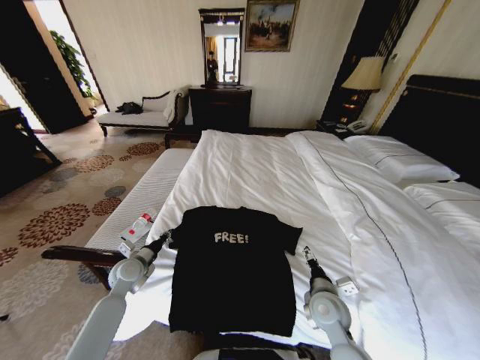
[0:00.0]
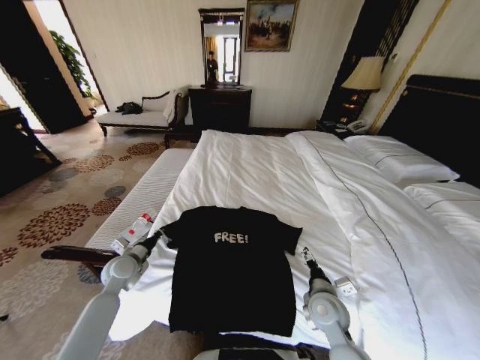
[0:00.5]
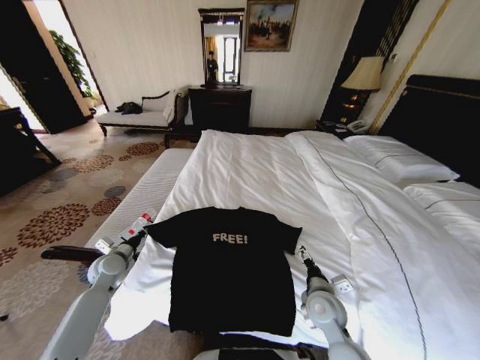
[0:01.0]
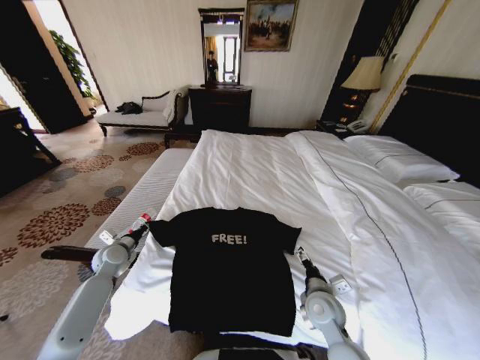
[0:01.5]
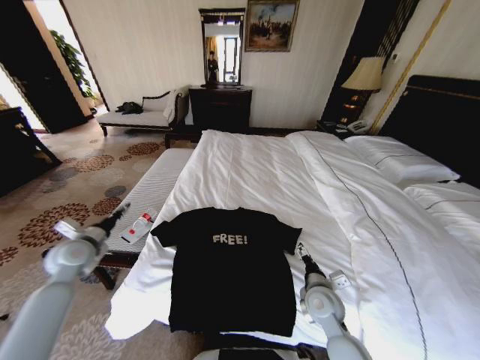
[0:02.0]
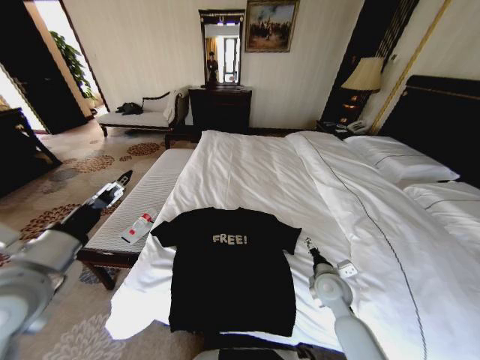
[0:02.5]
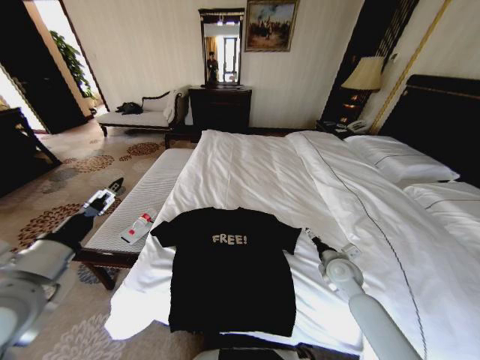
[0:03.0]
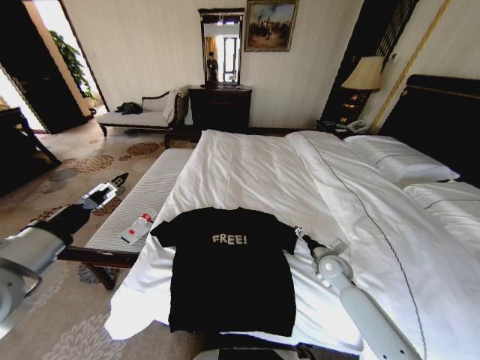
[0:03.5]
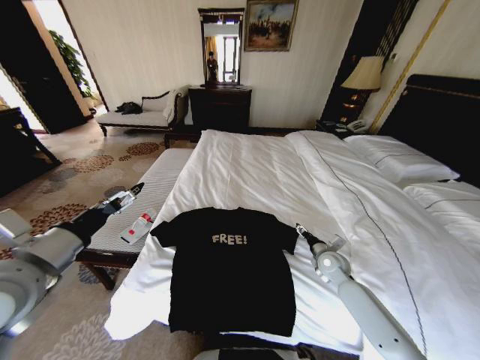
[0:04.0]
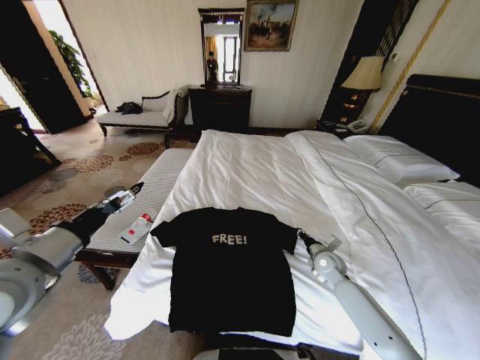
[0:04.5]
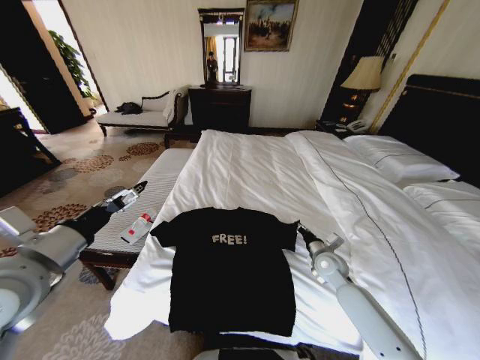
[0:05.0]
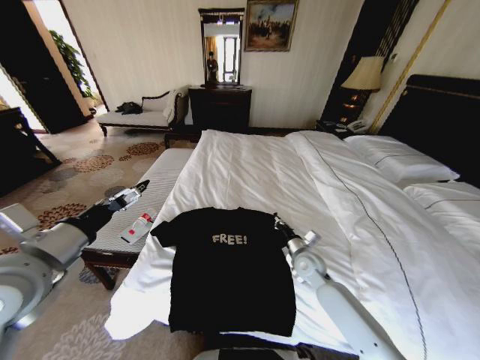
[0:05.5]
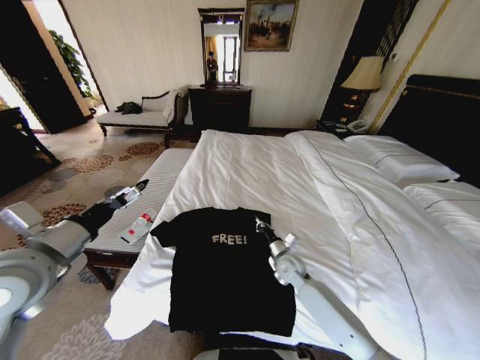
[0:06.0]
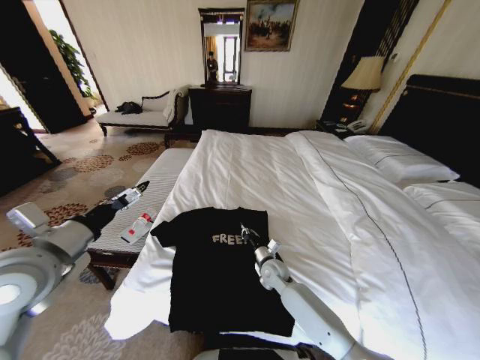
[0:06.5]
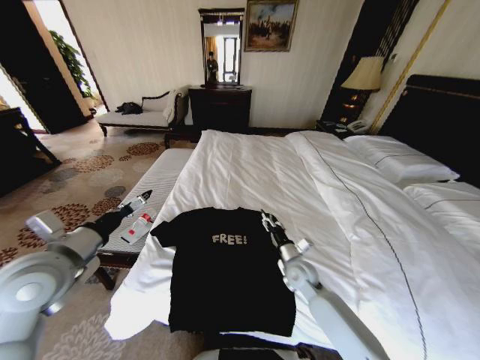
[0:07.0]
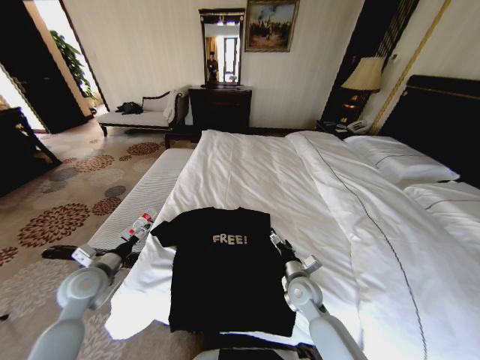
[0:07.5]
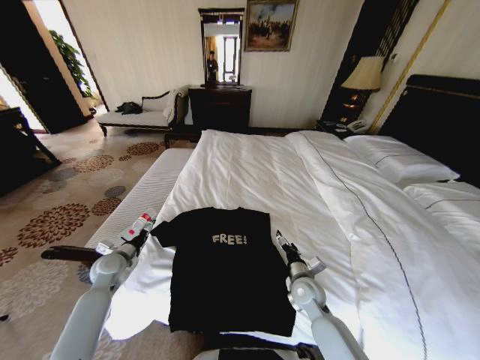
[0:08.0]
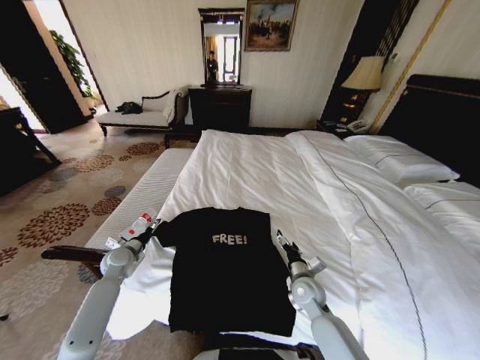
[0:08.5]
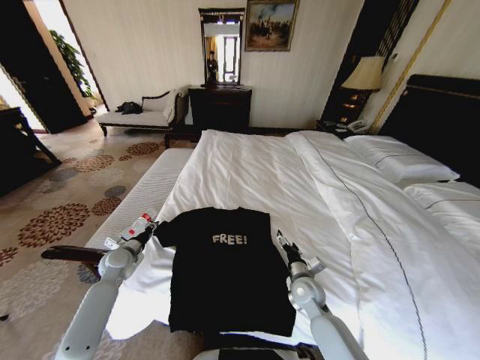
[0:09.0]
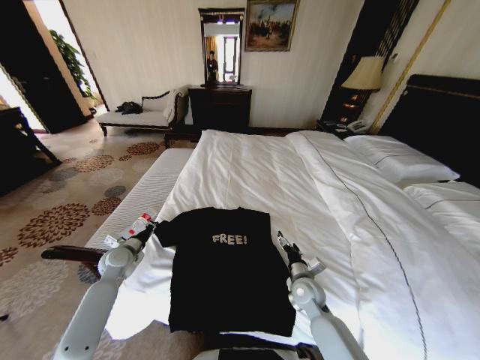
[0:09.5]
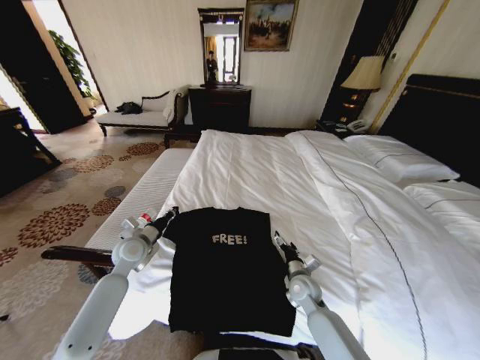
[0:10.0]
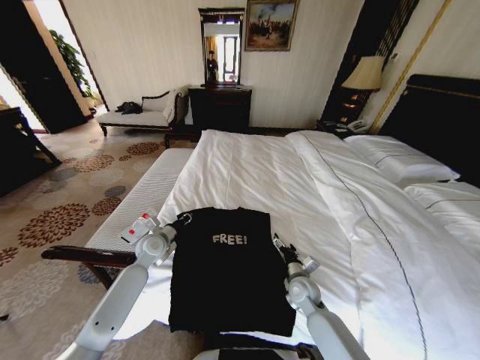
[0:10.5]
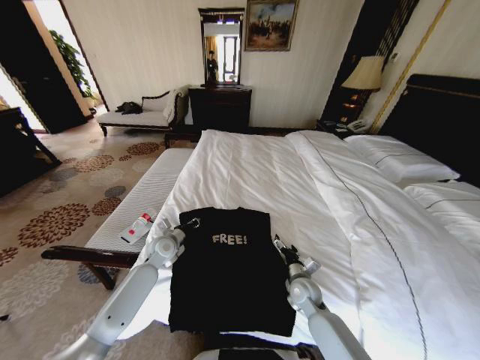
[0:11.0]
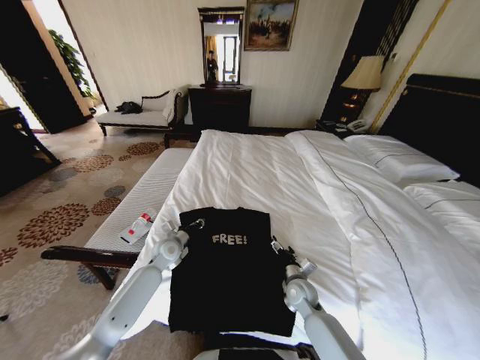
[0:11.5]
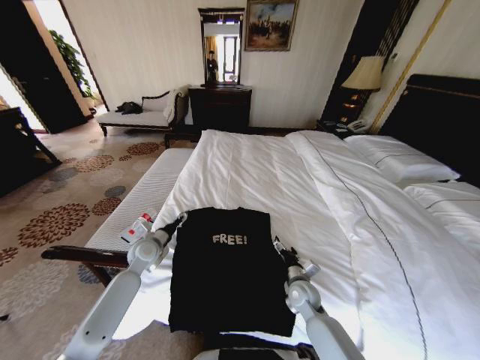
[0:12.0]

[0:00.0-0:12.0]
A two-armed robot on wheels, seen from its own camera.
Task of the whole recording: Fold the clothes on the bed.
0:00.0 to 0:02.0: The left gripper travels upward and to the left by about 15 cm.
0:02.0 to 0:04.0: The left gripper shifts some 20 cm upward, backward and to the right, and opens up. Meanwhile the right gripper moves forward and to the right, some 15 cm.
0:04.0 to 0:06.0: The right gripper shifts roughly 15 cm to the left, and closes up.
0:06.0 to 0:08.0: The right gripper moves backward, roughly 10 cm, and opens; the left gripper goes approximately 30 cm downward and forward.
0:08.0 to 0:10.0: The left gripper travels to the right and upward by about 10 cm, and closes its fingers.
0:10.0 to 0:12.0: The left gripper travels to the right and back again, roughly 10 cm each way, and opens up.

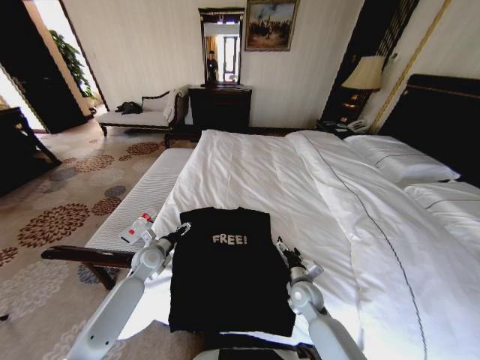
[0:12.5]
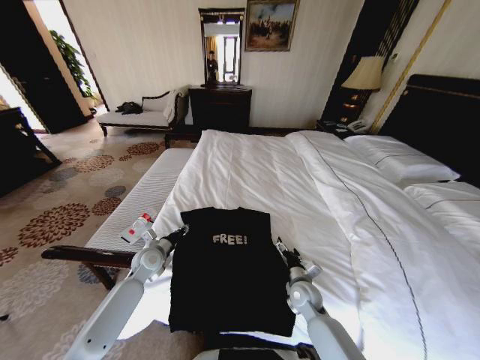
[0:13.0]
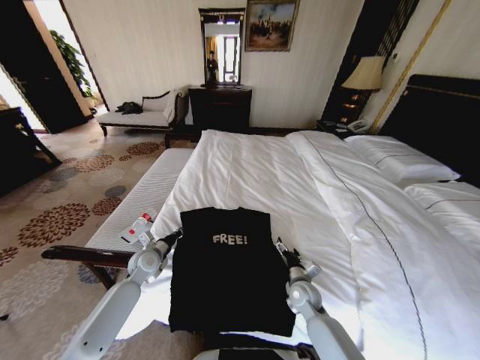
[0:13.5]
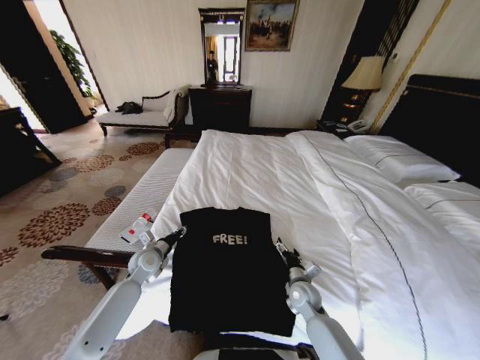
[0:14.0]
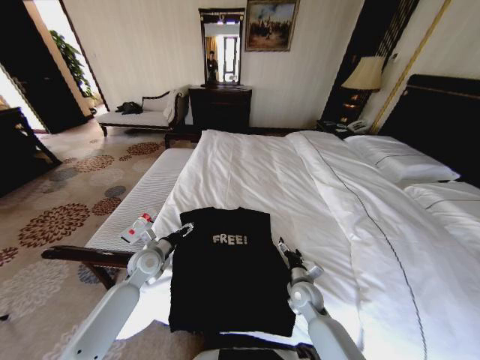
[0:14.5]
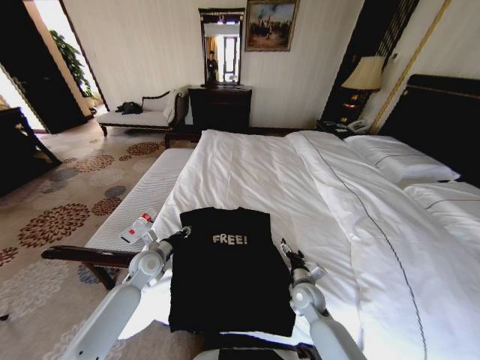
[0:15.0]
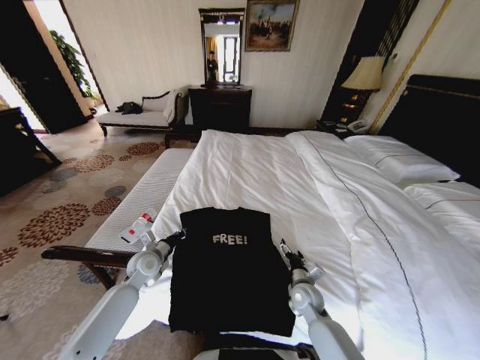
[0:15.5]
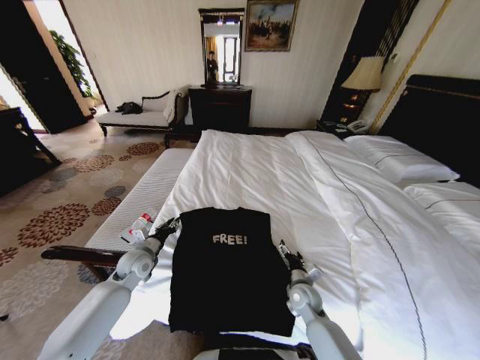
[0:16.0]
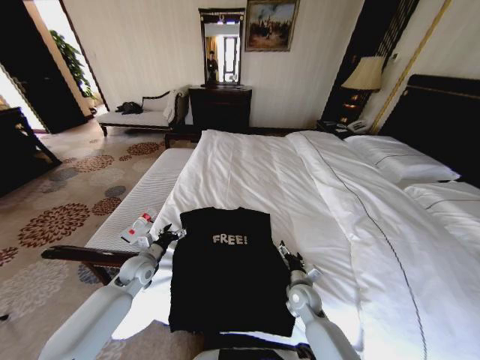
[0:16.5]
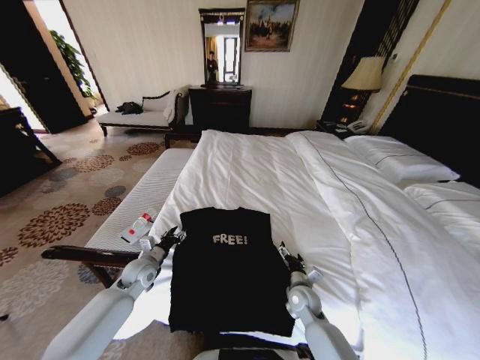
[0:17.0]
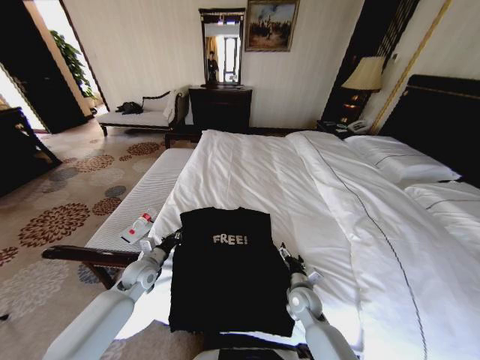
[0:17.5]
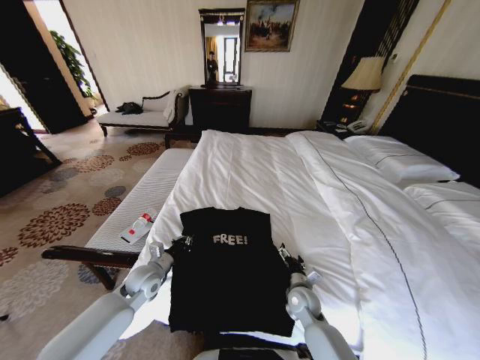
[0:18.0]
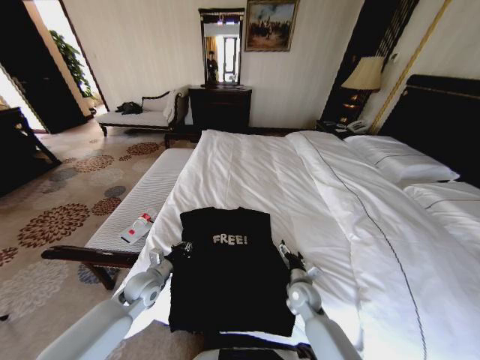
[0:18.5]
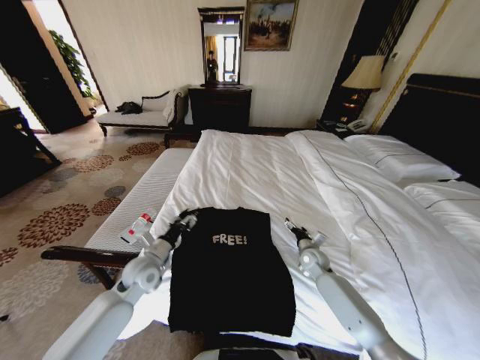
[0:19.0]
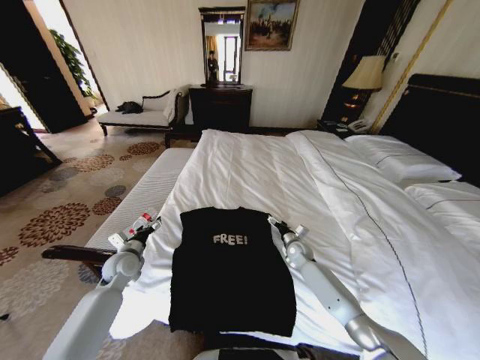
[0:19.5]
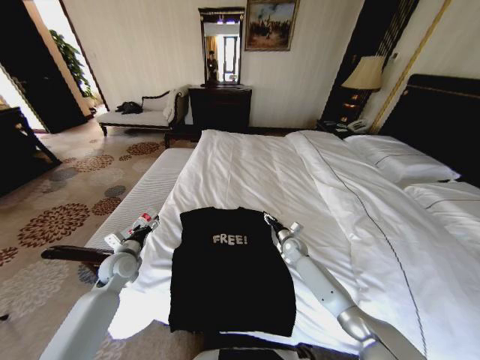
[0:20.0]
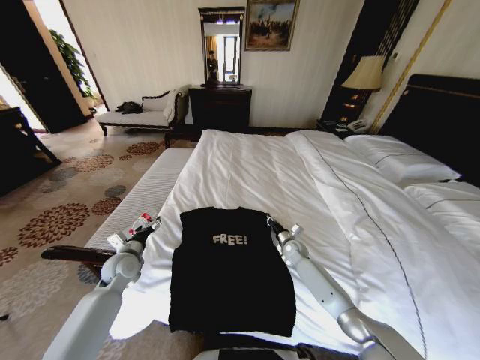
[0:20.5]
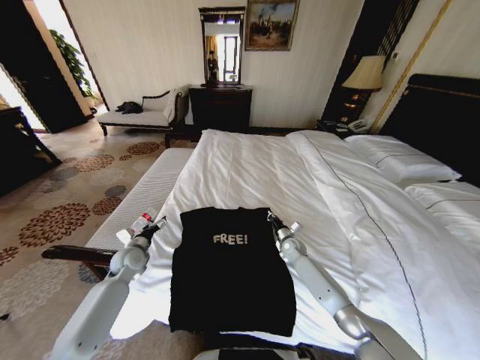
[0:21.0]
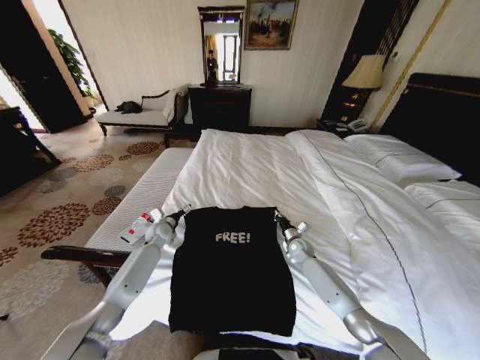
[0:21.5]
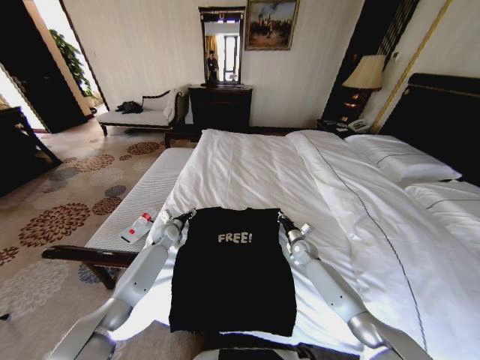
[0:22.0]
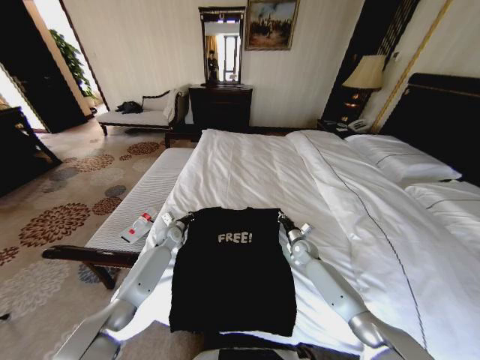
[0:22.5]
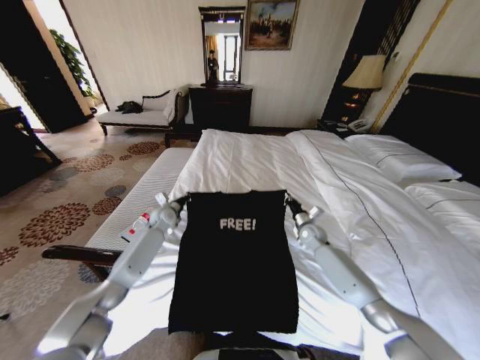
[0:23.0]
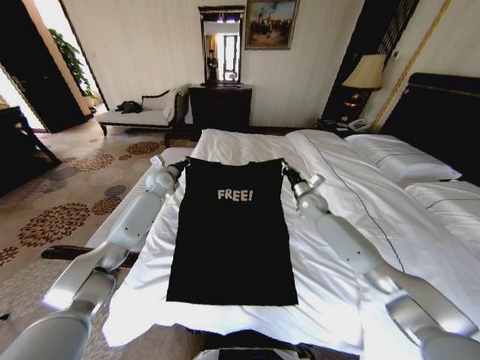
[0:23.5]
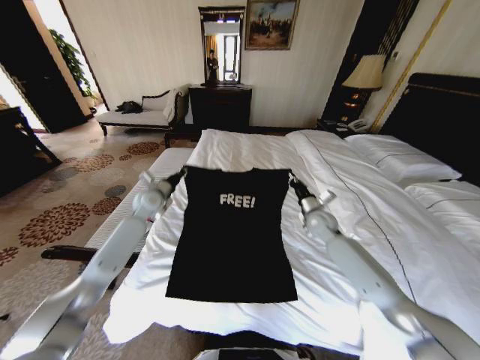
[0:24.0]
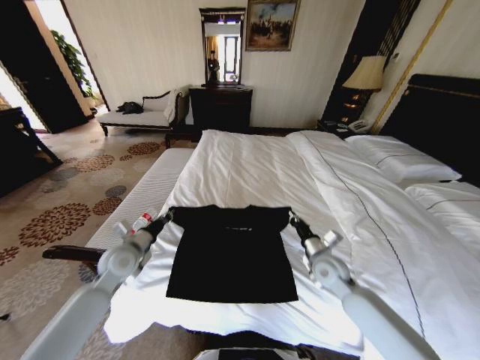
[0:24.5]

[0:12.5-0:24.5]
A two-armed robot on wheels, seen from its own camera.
Task of the whole recording: Fold the clothes on the bed.
0:12.5 to 0:14.5: The left gripper closes, then reopens.
0:14.5 to 0:16.5: The left gripper closes, then reopens.
0:16.5 to 0:18.5: The left gripper ends up some 5 cm from where it was, and closes.
0:18.5 to 0:20.5: The left gripper heads to the left, covering some 5 cm, and opens its fingers, while the right gripper travels forward by some 15 cm, and closes up.
0:20.5 to 0:22.5: The left gripper is displaced forward and to the right by approximately 20 cm, and closes.
0:22.5 to 0:24.5: The two grippers go some 20 cm backward and upward.

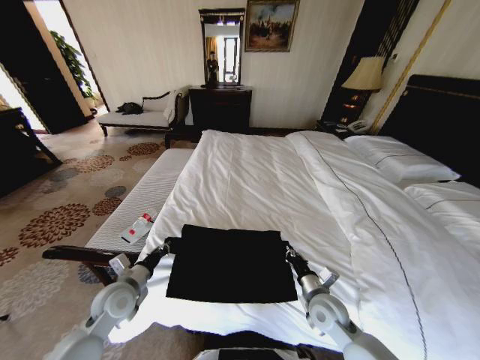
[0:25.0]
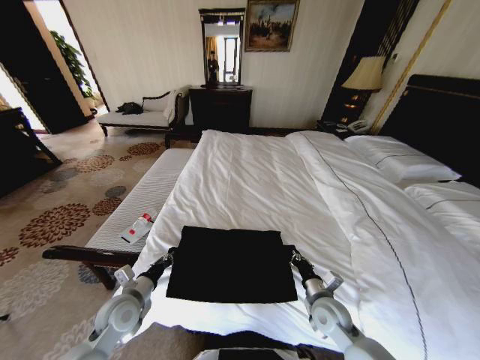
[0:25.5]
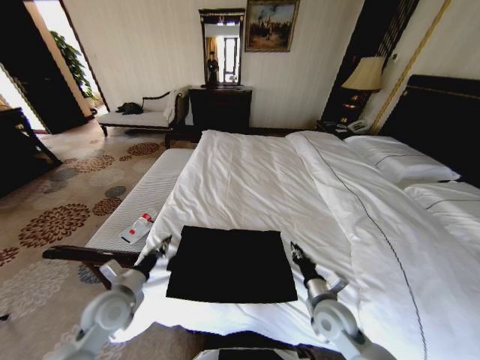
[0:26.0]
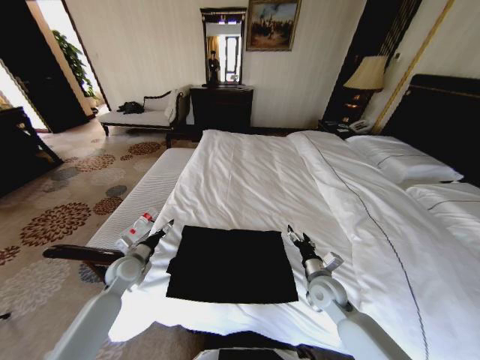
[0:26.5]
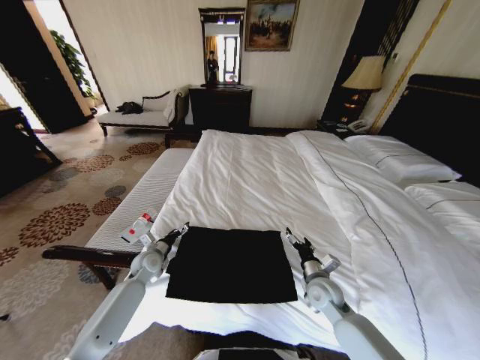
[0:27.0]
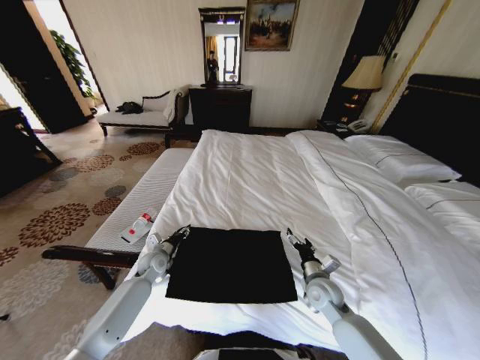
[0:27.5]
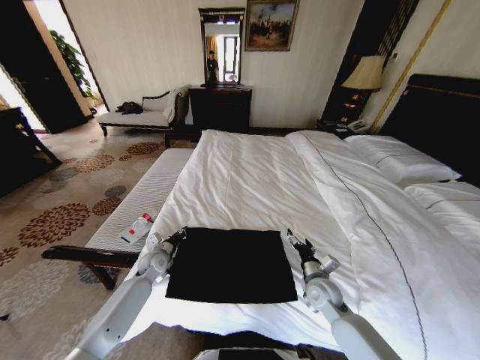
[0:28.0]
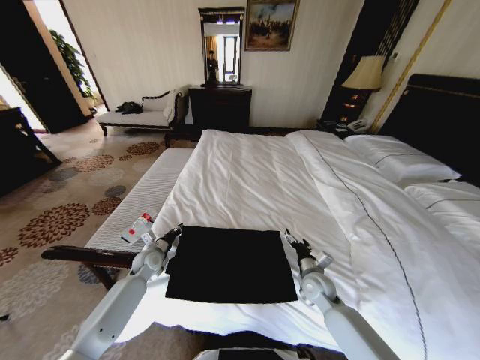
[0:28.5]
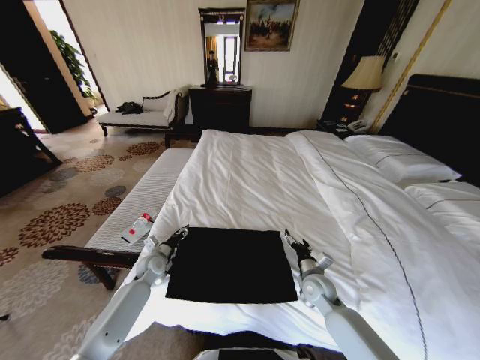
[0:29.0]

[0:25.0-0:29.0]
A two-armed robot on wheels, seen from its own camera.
Task of the whole recording: Fold the clothes on the bed.
0:25.0 to 0:27.0: The left gripper is displaced forward and downward by approximately 15 cm, and opens, while the right gripper moves about 5 cm, and opens up.
0:27.0 to 0:29.0: The left gripper closes, then opens again.
